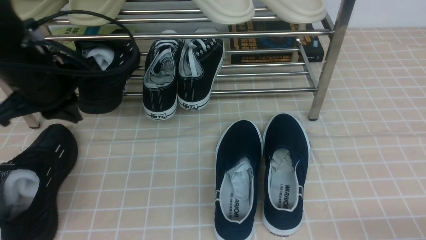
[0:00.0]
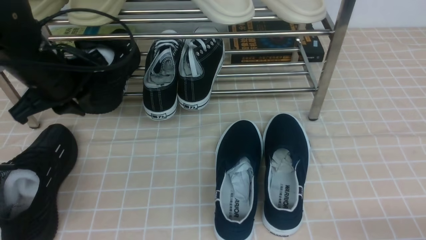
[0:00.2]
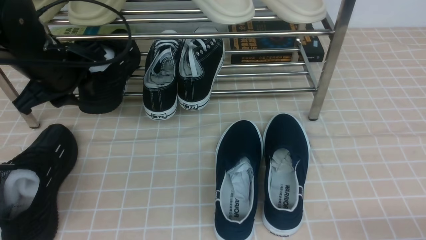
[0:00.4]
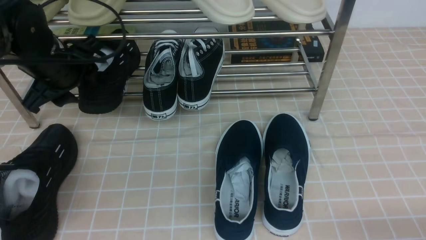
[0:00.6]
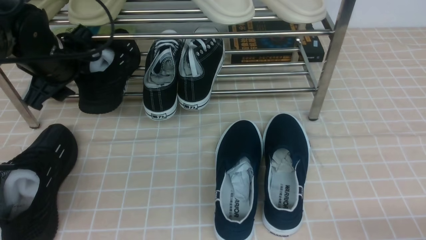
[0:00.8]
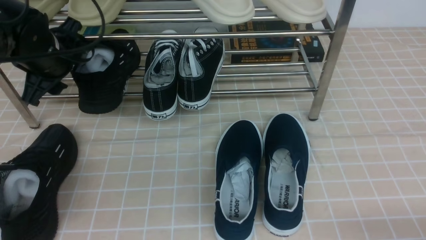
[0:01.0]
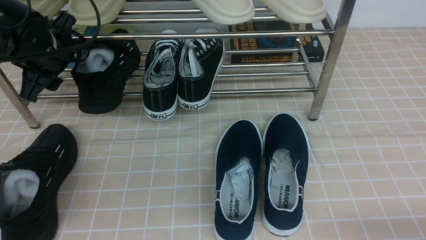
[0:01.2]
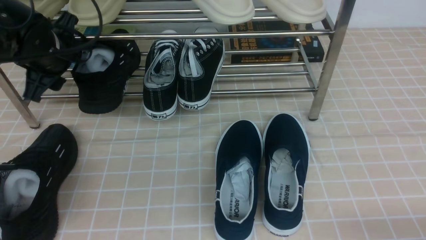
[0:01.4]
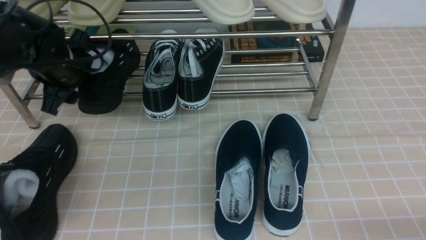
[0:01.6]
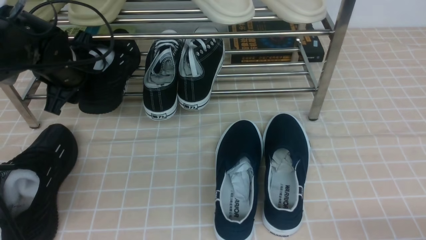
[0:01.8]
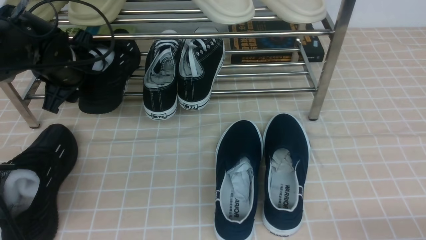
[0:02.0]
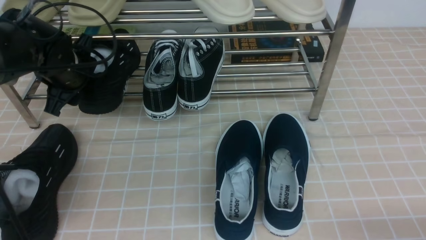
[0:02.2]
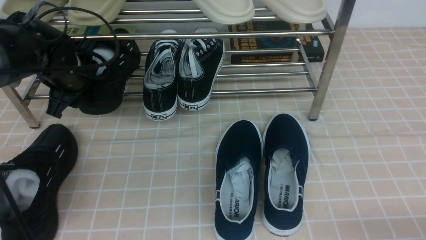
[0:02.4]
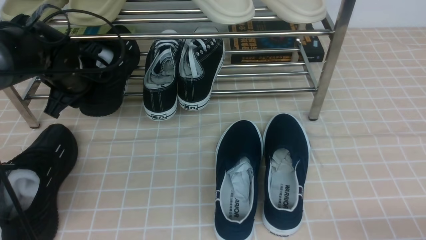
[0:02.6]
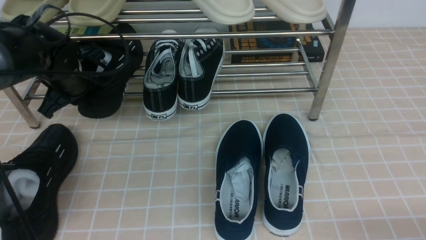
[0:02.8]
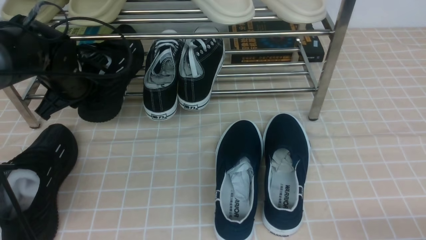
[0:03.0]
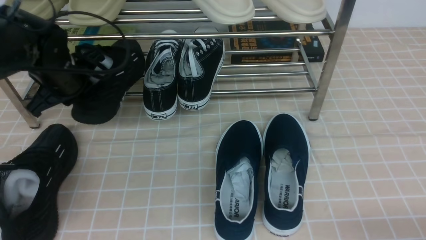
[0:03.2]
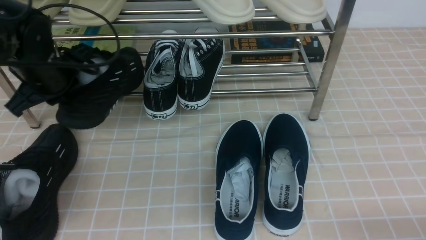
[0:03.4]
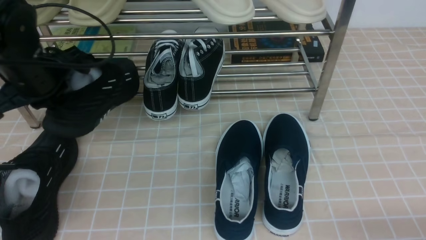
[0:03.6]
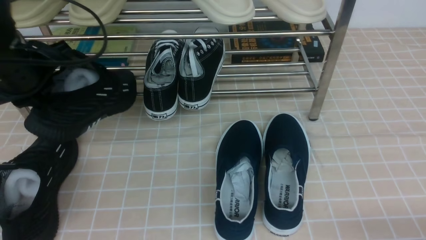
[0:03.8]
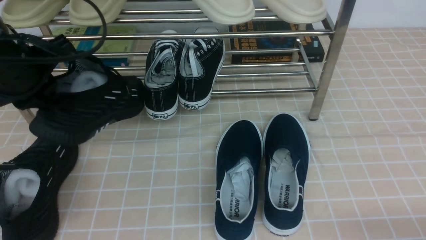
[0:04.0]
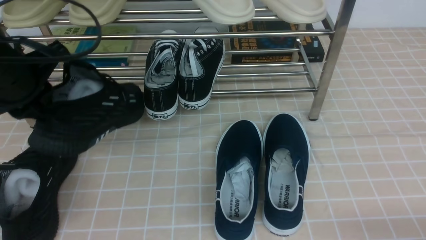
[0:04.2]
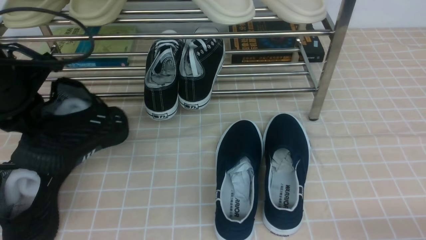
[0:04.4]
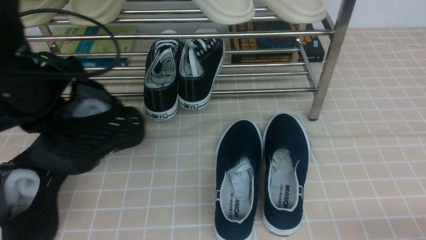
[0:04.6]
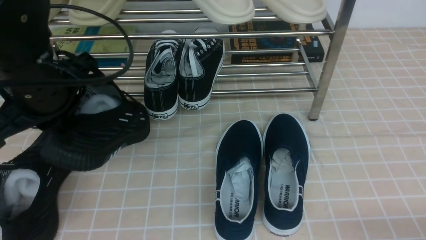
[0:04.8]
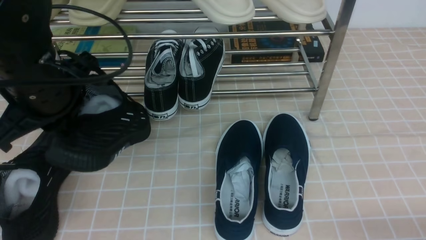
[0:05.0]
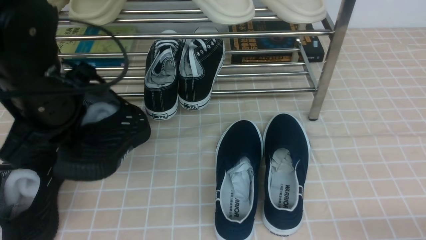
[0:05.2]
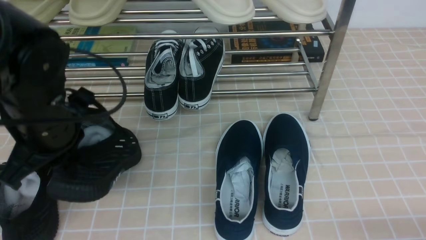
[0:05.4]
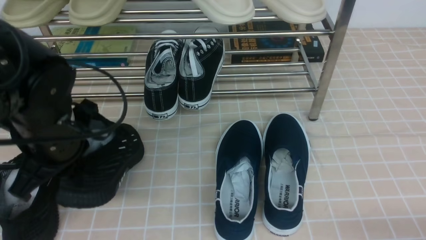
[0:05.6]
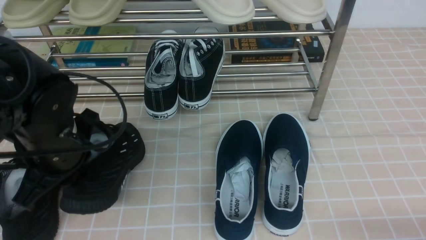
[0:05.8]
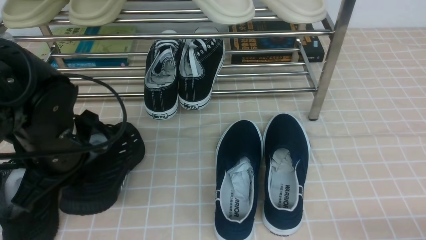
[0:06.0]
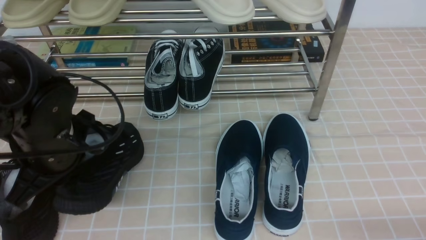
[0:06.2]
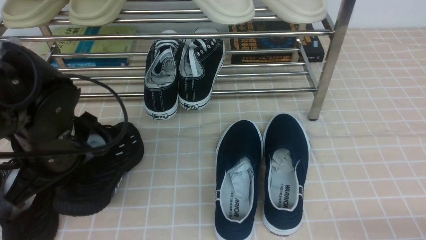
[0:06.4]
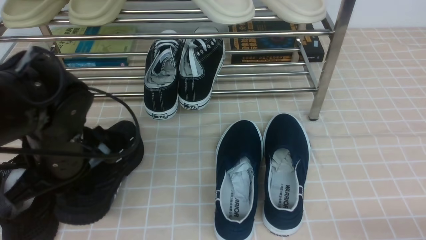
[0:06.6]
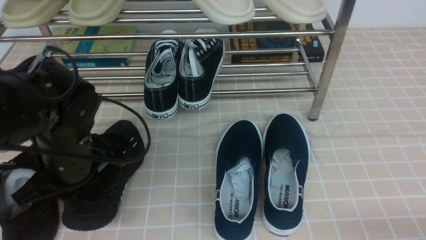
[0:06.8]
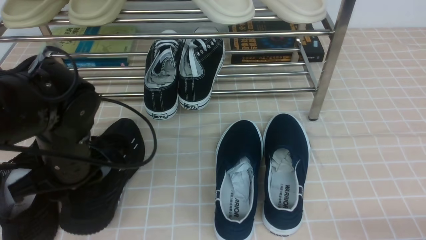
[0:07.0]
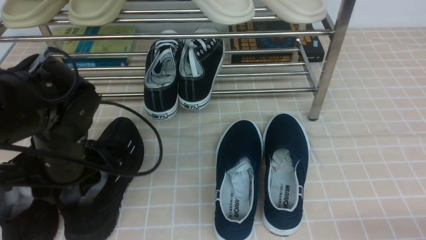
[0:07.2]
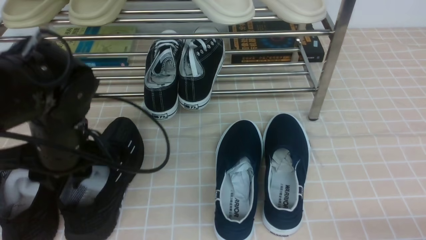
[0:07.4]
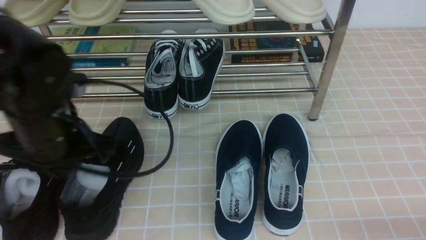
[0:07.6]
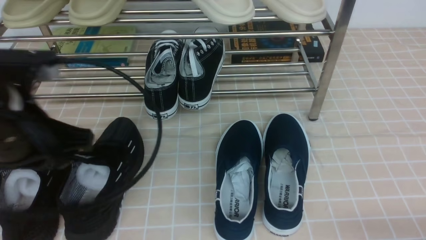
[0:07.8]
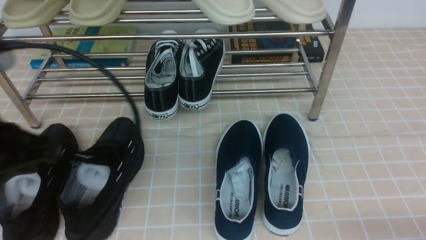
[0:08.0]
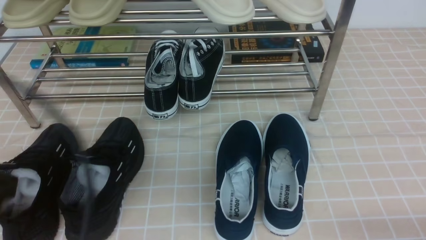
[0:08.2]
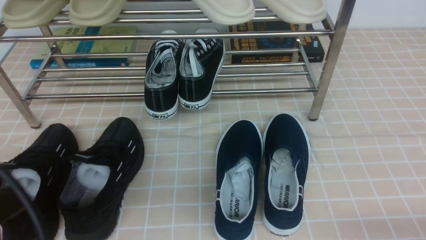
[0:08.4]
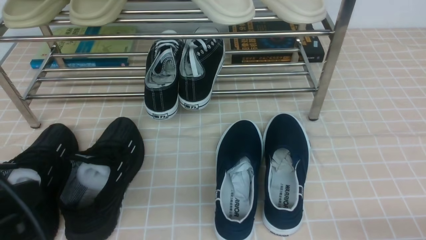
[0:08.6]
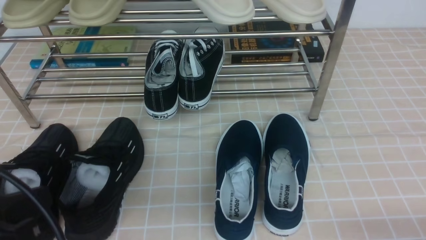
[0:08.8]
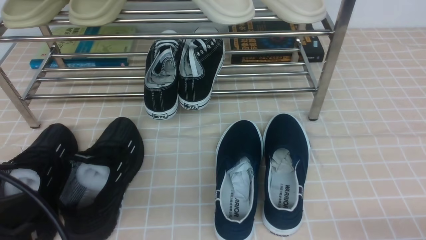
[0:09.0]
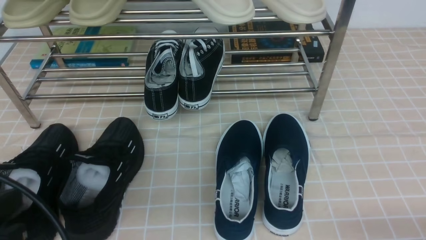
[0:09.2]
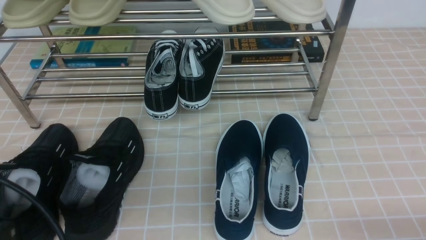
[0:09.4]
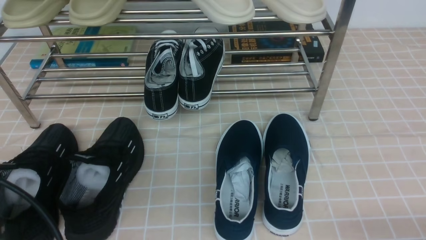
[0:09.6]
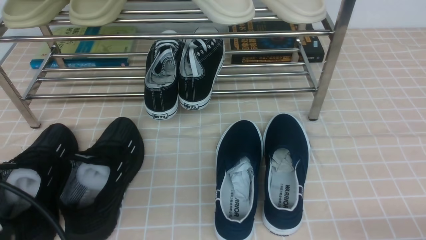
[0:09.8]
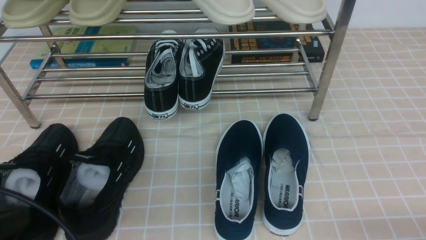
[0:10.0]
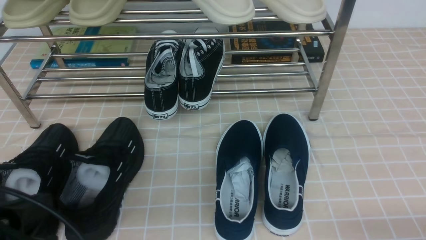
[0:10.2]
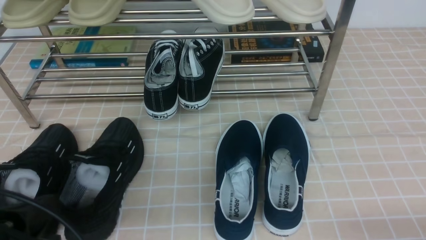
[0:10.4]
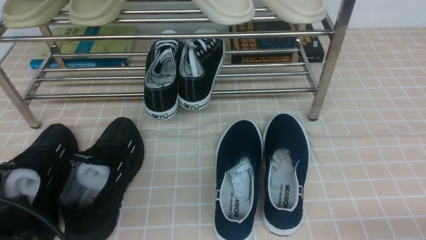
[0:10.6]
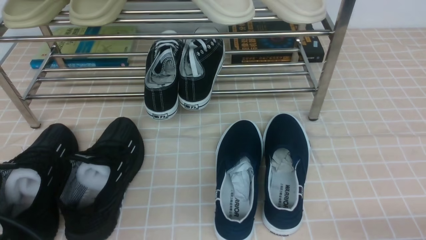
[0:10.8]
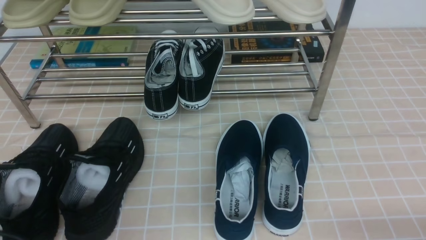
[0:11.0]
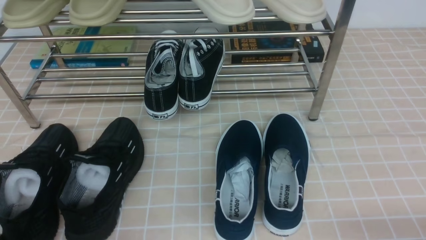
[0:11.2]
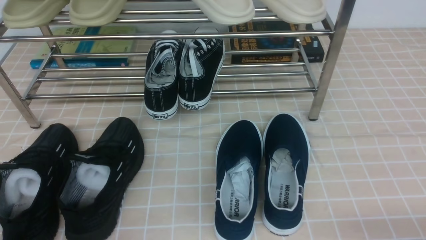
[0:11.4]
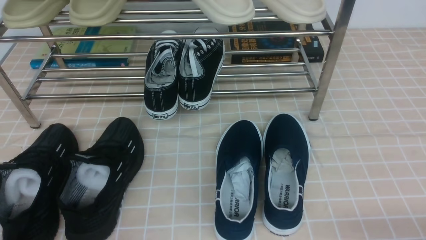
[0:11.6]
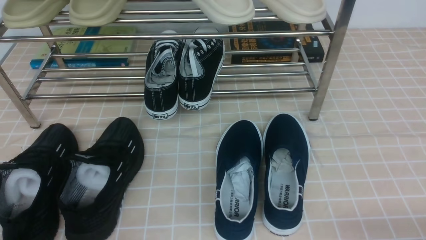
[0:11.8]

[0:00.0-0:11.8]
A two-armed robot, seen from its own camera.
Step, 0:00.0 to 0:02.8: use the left arm to clamp a shoe on the left side of the shoe rack.
Step, 0:03.0 to 0:07.2: Use your left arm to remove the clamped shoe from the shoe rack and put it down.
0:00.0 to 0:01.4: The left gripper is displaced forward by approximately 5 cm, and opens.
0:01.4 to 0:03.0: The left gripper closes its fingers.
0:03.0 to 0:04.4: The left gripper shifts about 15 cm backward and upward.
0:04.4 to 0:06.0: The left gripper heads downward, covering approximately 10 cm.
0:07.4 to 0:08.8: The left gripper is displaced backward by approximately 15 cm, and closes.
0:08.8 to 0:10.4: The left gripper shifts about 5 cm downward.
0:10.4 to 0:11.8: The left gripper goes approximately 10 cm downward.

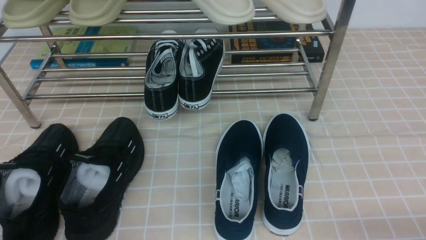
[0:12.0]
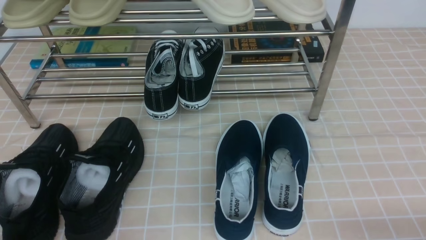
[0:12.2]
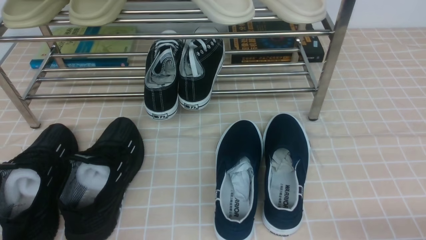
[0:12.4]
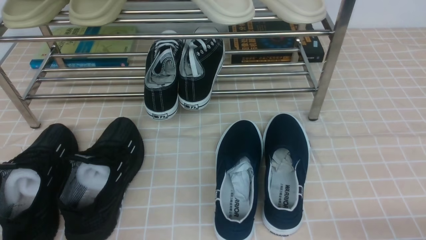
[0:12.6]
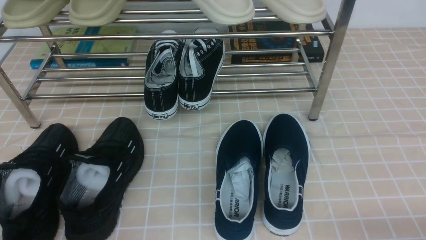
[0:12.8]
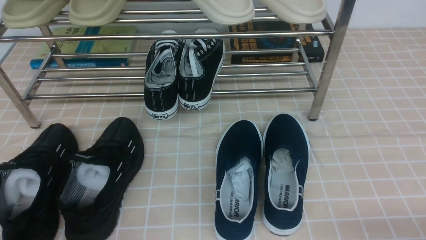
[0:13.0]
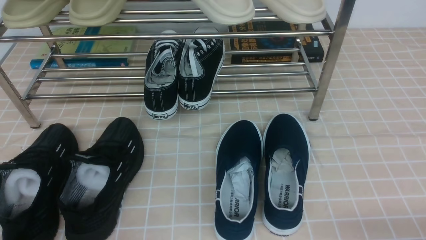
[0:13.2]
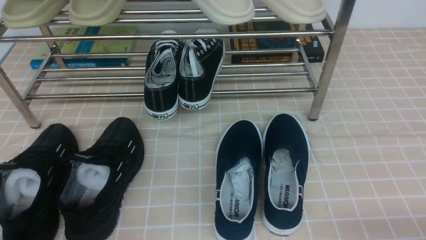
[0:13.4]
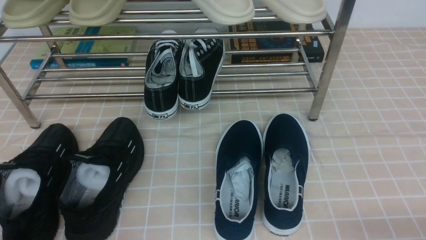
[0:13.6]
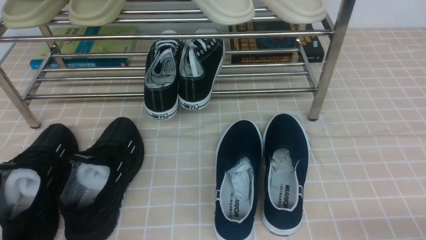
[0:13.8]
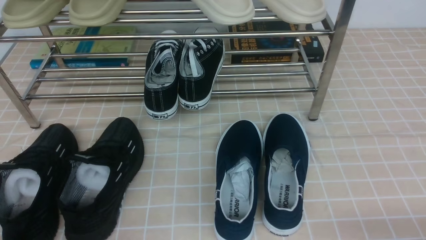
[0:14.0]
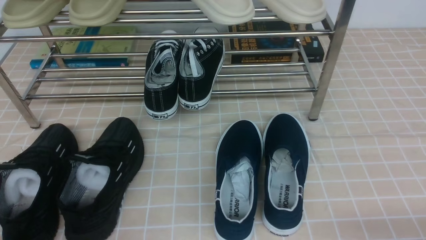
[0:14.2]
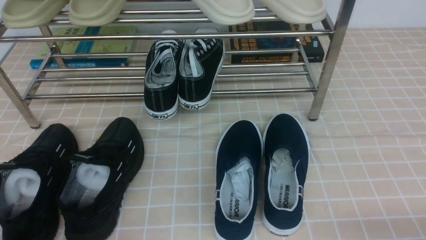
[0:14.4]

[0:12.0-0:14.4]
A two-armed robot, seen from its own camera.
0:12.0 to 0:14.4: Neither gripper changes place.
